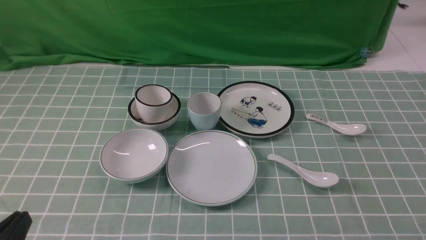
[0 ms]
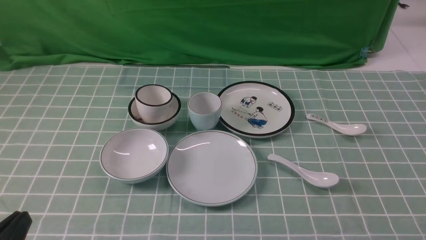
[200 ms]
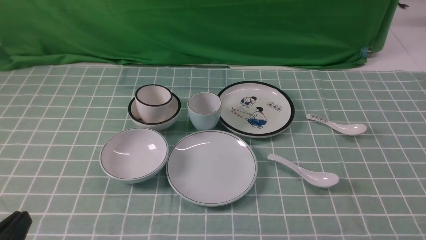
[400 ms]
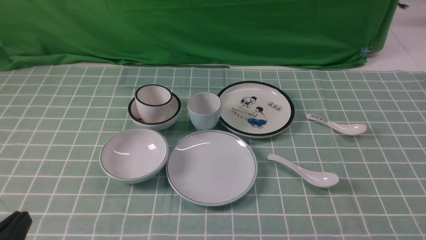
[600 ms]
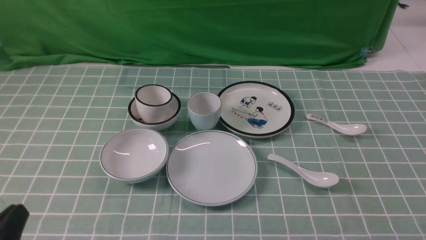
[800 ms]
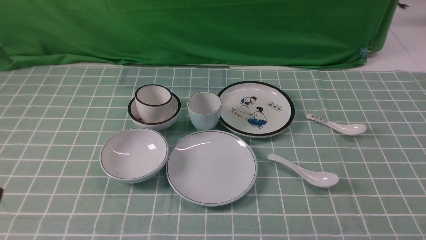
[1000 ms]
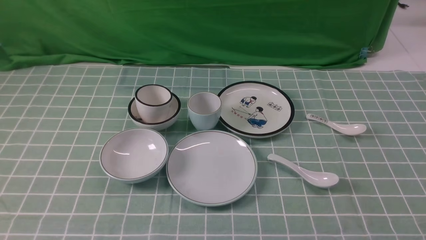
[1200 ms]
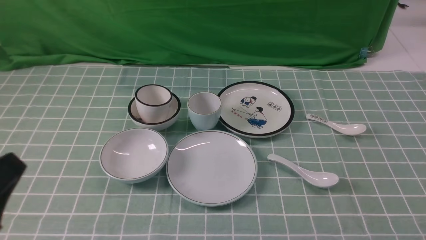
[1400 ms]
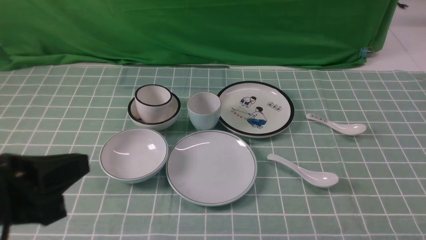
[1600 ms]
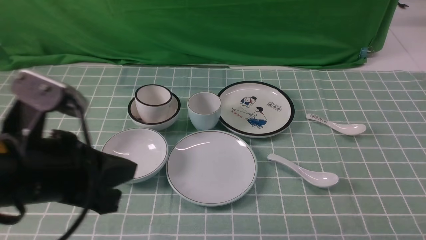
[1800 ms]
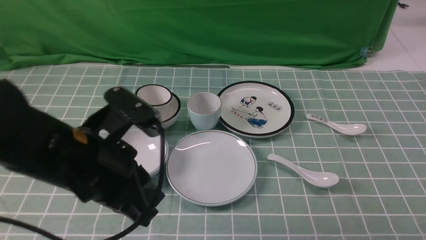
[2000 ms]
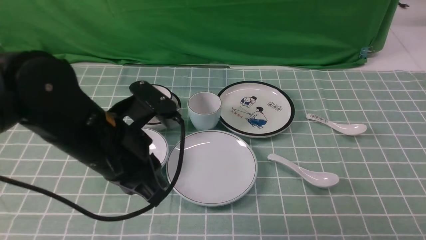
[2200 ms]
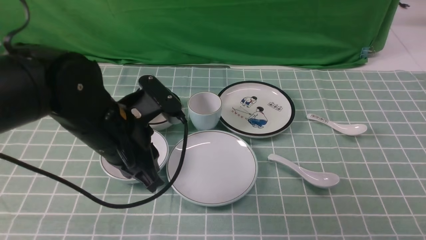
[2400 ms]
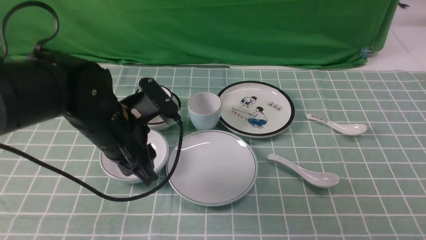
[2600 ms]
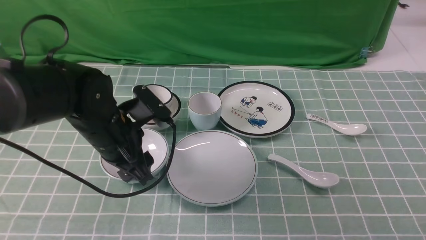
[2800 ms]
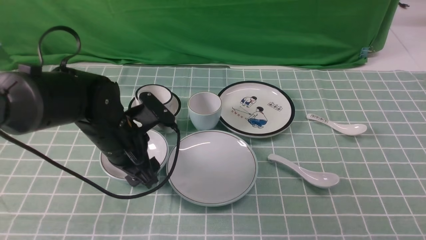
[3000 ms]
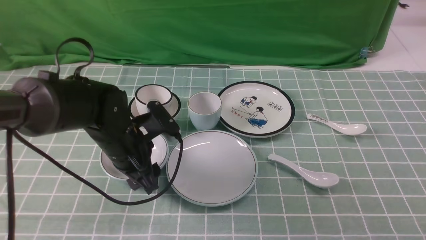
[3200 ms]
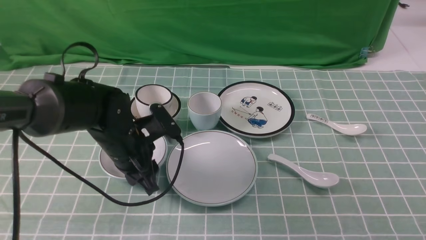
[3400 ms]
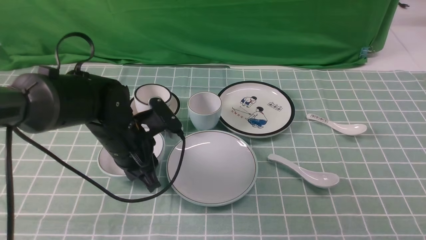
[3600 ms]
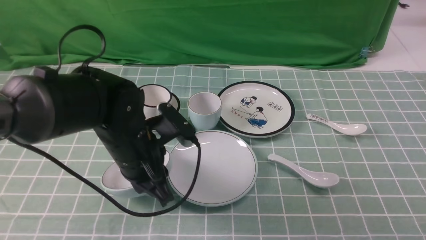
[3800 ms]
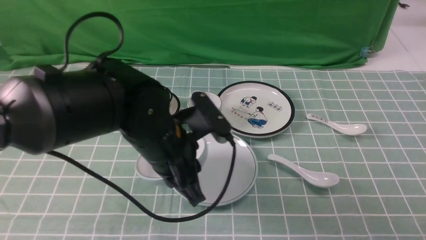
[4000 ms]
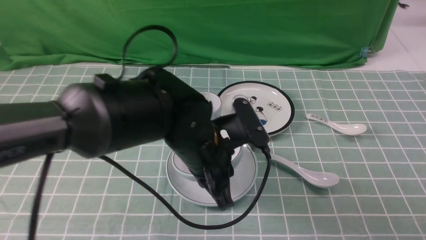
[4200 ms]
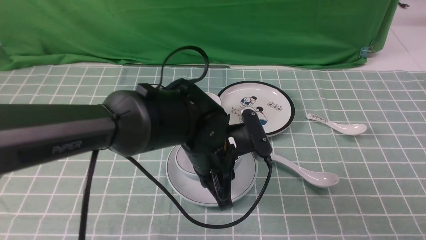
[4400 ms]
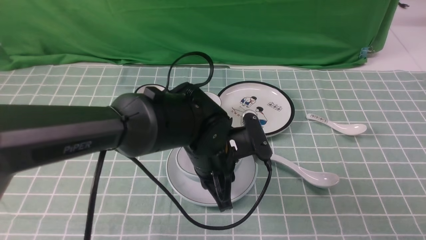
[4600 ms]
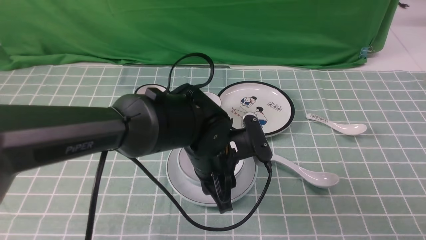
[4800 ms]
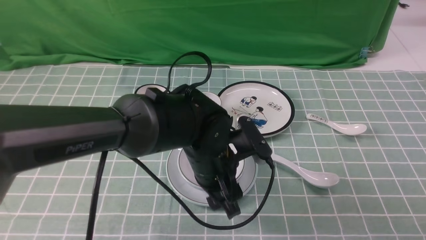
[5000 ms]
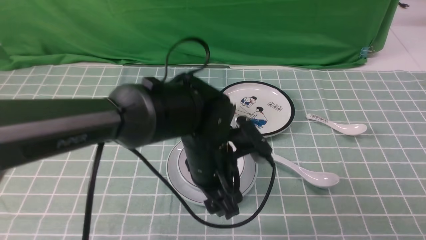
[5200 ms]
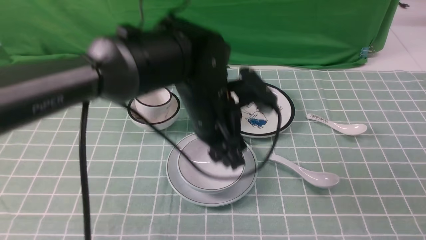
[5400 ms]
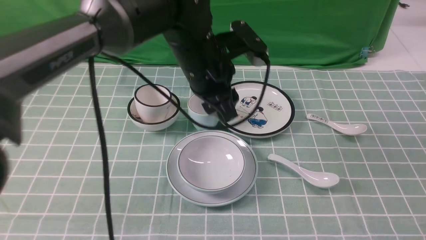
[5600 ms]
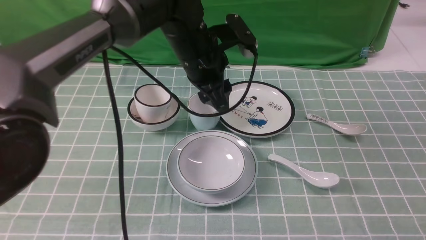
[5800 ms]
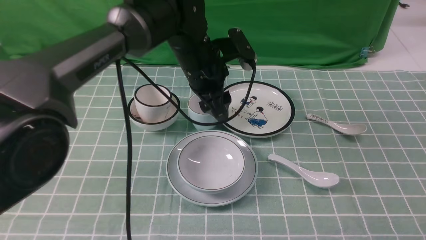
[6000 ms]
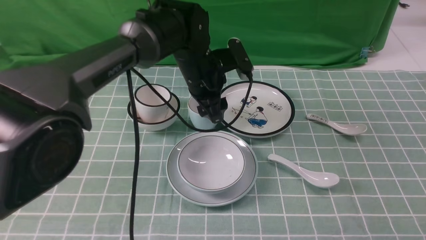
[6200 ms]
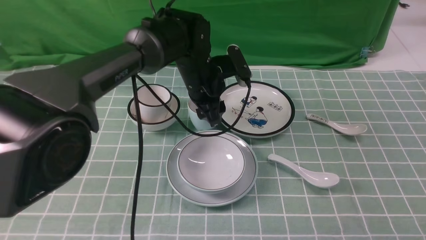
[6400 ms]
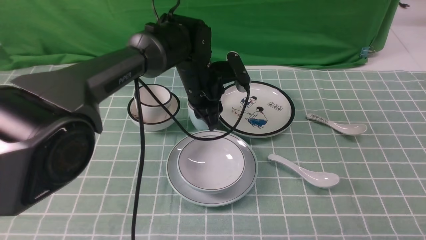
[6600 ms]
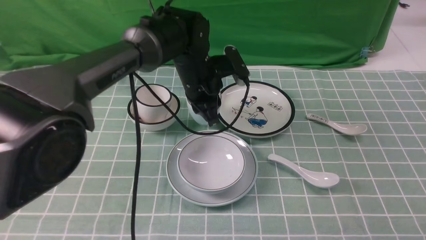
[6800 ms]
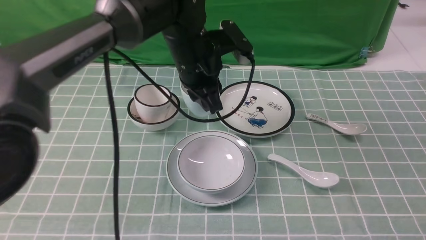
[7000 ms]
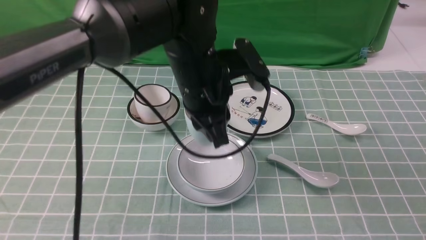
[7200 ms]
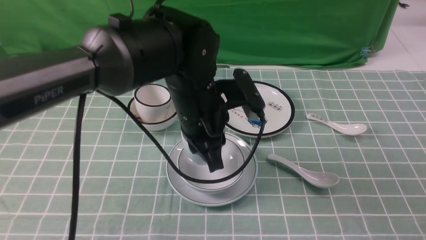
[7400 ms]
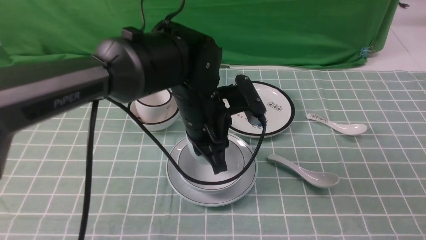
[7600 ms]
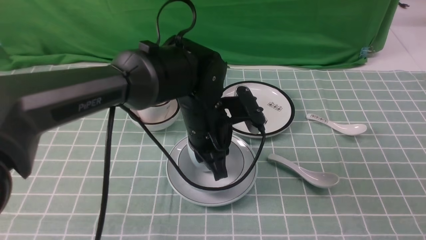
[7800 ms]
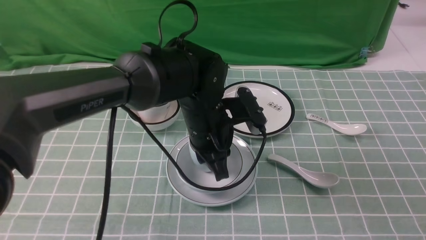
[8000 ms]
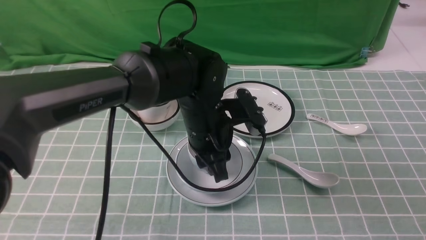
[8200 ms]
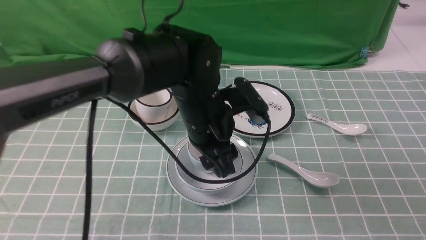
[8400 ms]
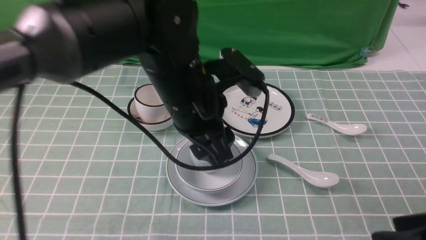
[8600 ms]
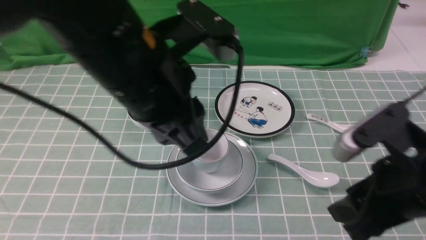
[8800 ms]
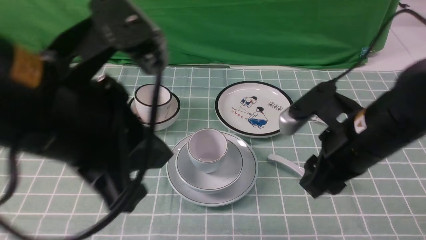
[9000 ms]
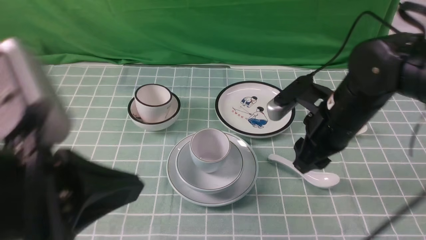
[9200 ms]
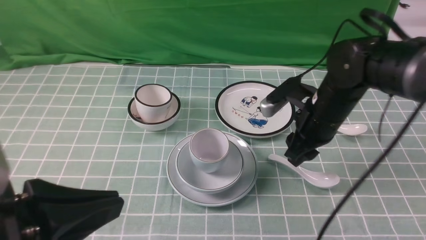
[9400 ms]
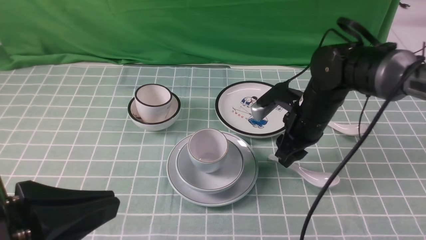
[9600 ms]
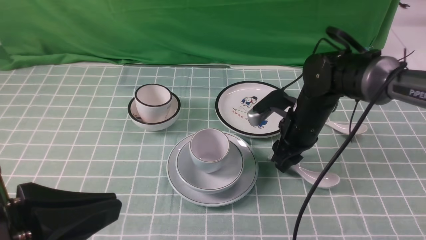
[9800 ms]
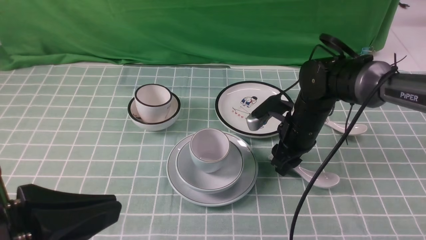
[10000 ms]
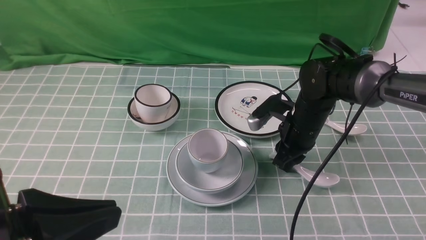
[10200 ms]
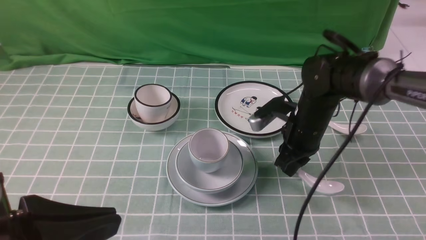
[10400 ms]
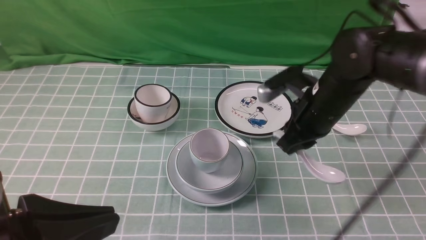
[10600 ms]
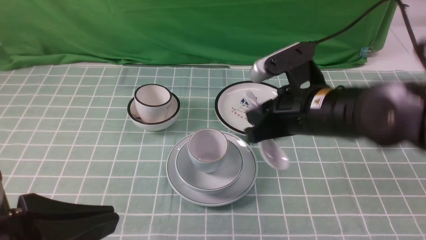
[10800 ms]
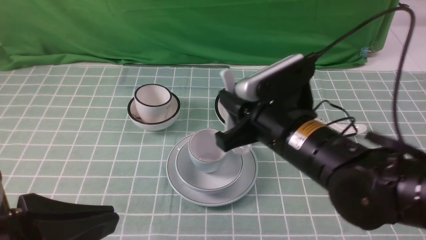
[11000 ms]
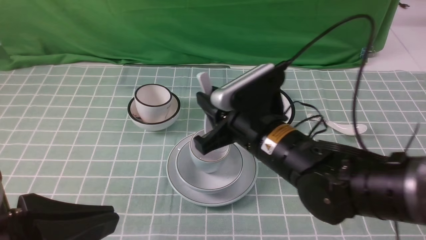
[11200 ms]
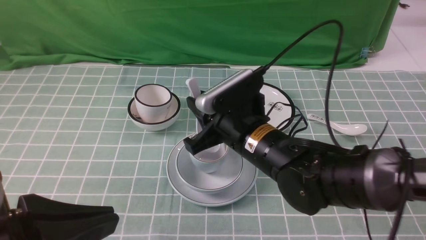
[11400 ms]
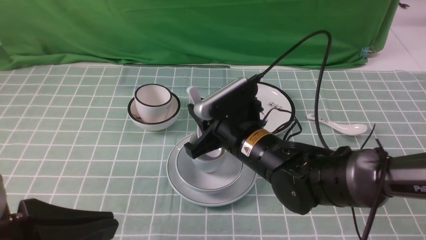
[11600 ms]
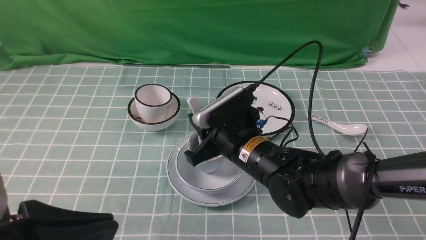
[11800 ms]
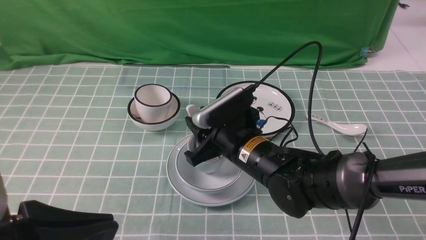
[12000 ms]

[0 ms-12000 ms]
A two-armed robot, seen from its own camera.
Task of the whole recording: place the bowls on the plates on the blue tablecloth, put the cups on the bowls, and place the spoons in the cups.
Step, 0 ms to 3400 ms: Grasp the bowl with the left gripper.
Step, 3600 ms to 4800 ms: Place the bowl on the plate with the left gripper.
Step, 5000 ms to 6600 ms: Grasp the cup with the left gripper.
Step, 6800 ms to 8200 ms: Place the cup on the bowl with the left gripper.
Step, 8400 ms to 10200 ms: Grasp the spoon with the right gripper.
Step, 10400 ms to 12000 ms: Place the spoon on the cup with the right gripper.
0 ms to 1600 ms: The left gripper travels upward and forward by some 15 cm.
1600 ms to 3000 ms: The right gripper travels upward by roughly 15 cm. The left gripper shifts some 25 cm forward and downward, and opens.
3000 ms to 4400 ms: The left gripper shifts approximately 15 cm to the right, and closes.
4400 ms to 6000 ms: The left gripper moves forward, some 15 cm, and opens up.
6000 ms to 7600 ms: The left gripper goes some 10 cm backward, and closes.
7600 ms to 9000 ms: The right gripper shifts some 25 cm forward and to the left, while the left gripper shifts approximately 25 cm backward, upward and to the left, and opens and closes again.
9000 ms to 10400 ms: The right gripper travels forward and downward by roughly 15 cm, and closes. Meanwhile the left gripper shifts about 10 cm backward, to the left and downward.
10400 ms to 12000 ms: The right gripper moves to the left and backward, some 15 cm, and opens.

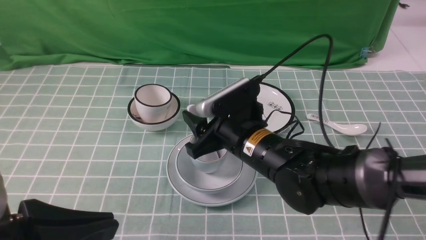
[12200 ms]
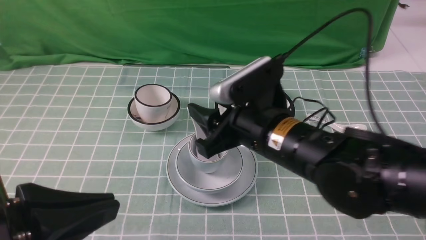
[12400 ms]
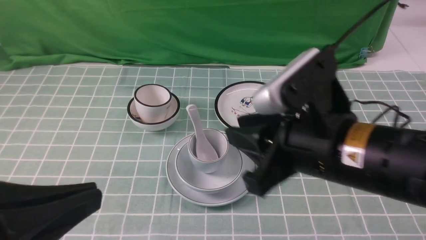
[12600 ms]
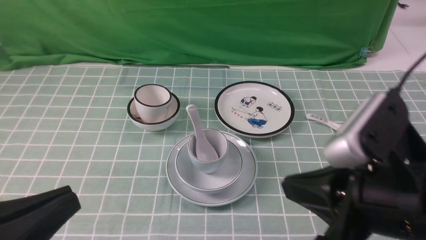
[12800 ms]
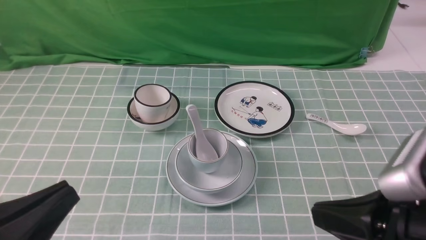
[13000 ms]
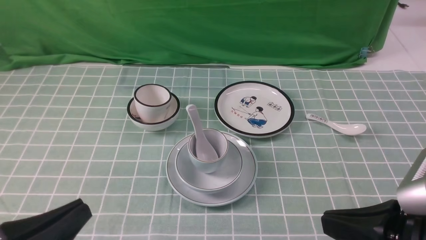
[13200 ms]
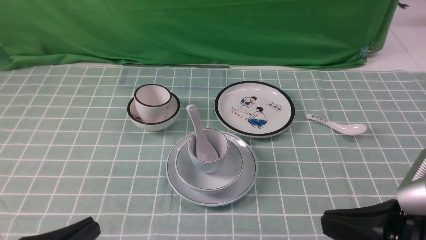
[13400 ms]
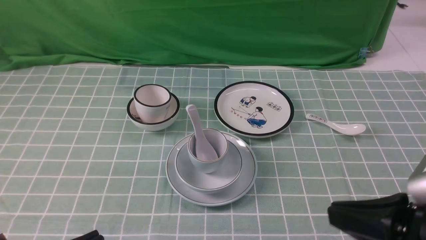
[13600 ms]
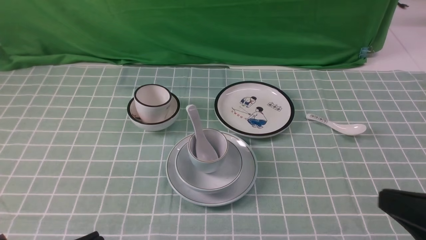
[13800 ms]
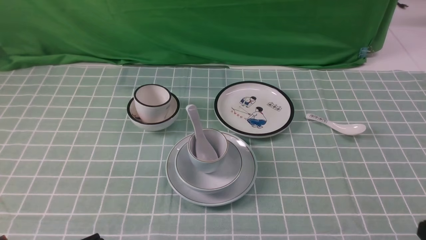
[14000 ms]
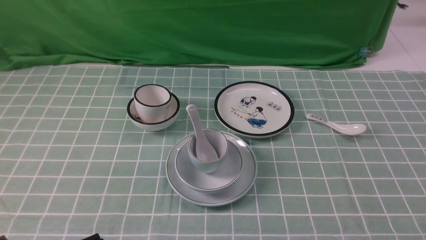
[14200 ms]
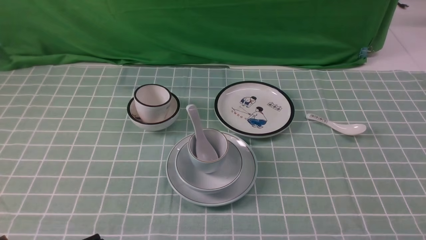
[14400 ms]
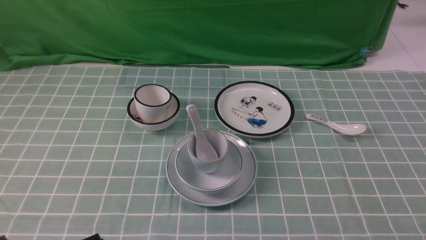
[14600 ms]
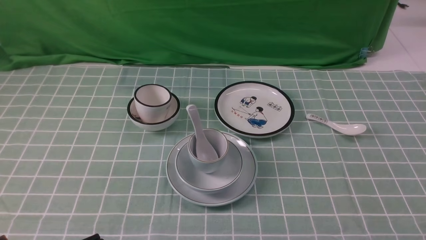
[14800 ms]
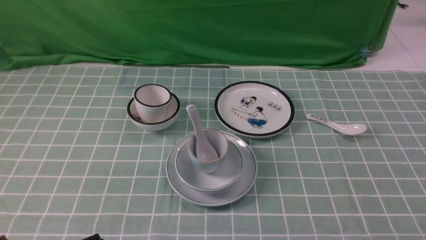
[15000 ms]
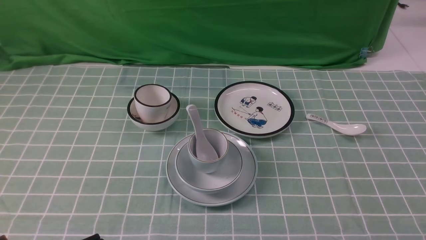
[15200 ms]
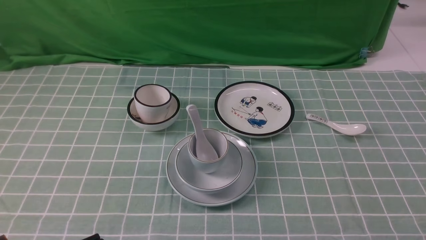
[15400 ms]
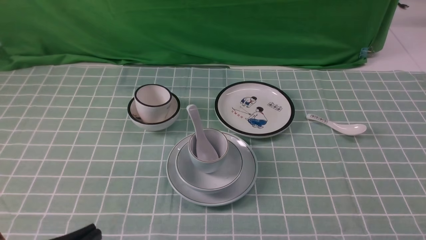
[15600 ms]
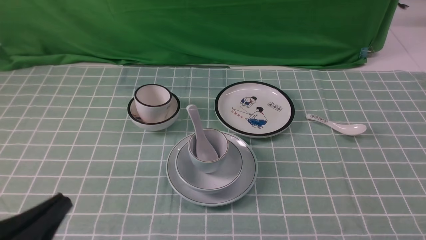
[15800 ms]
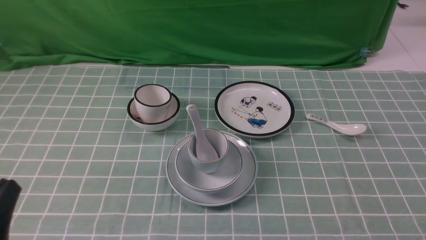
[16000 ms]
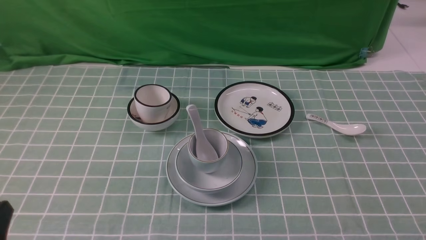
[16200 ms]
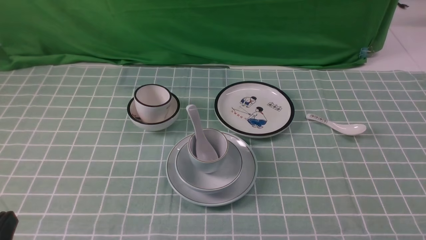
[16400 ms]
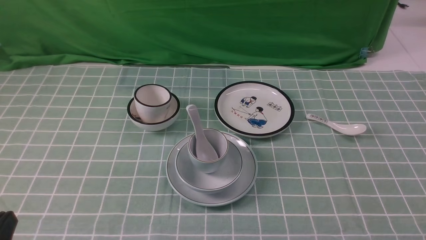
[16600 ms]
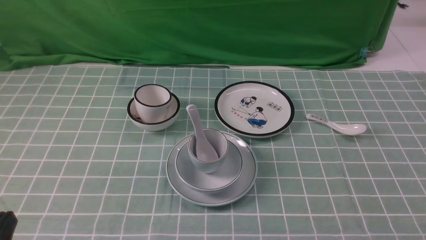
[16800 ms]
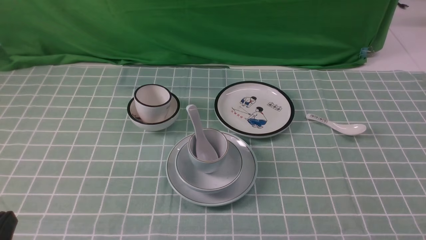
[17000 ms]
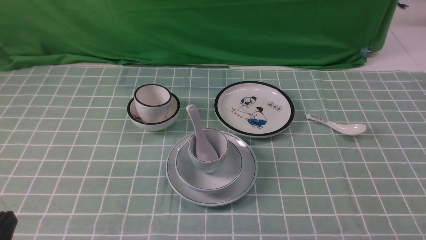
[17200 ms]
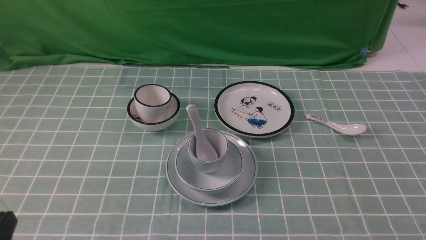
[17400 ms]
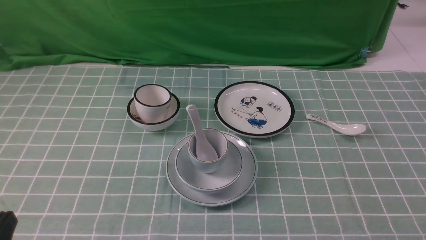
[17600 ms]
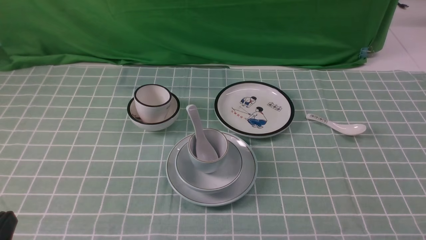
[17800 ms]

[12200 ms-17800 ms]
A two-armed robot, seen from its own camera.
Task of the whole recording: place the bowls on the plates on the blue tablecloth, put the cups on the bowls, and place the spoons in the cups.
12200 ms to 13600 ms: The right gripper goes some 25 cm to the right and backward, and closes. The left gripper moves downward, some 15 cm.
13600 ms to 15000 ms: The right gripper is displaced downward and to the right by about 15 cm.
16400 ms to 17800 ms: Both grippers stay about where they are.
